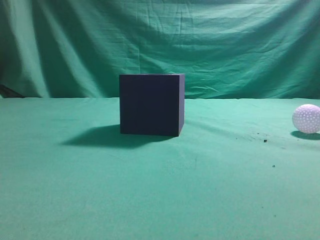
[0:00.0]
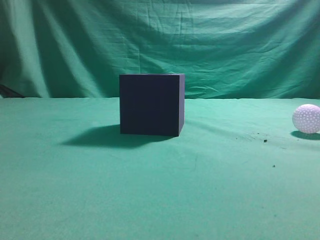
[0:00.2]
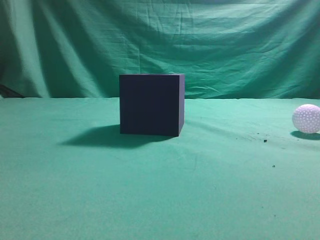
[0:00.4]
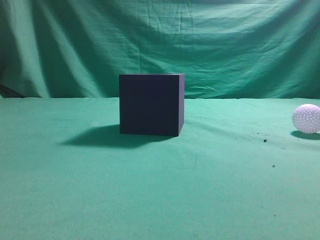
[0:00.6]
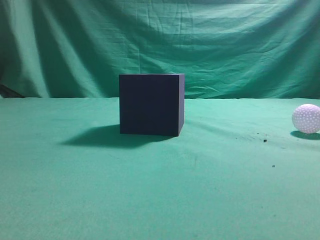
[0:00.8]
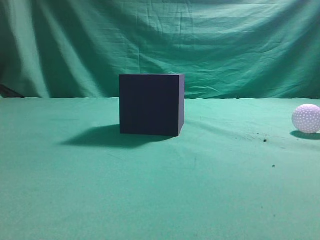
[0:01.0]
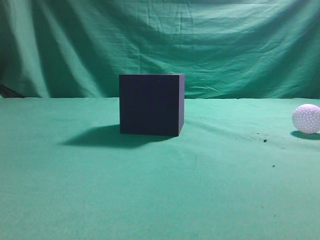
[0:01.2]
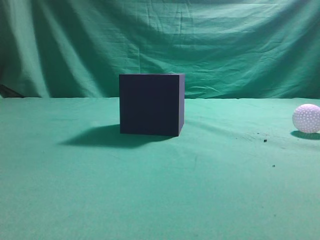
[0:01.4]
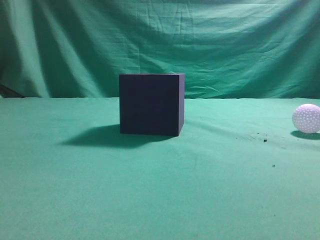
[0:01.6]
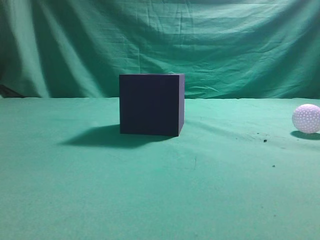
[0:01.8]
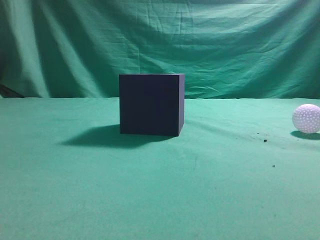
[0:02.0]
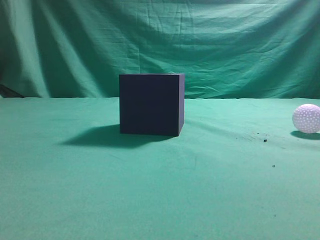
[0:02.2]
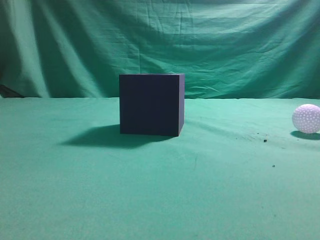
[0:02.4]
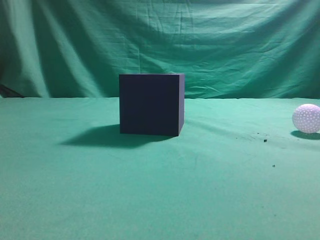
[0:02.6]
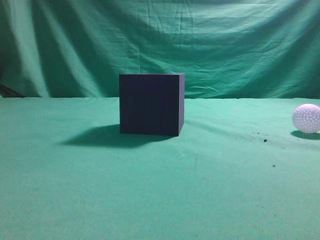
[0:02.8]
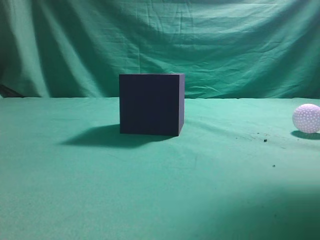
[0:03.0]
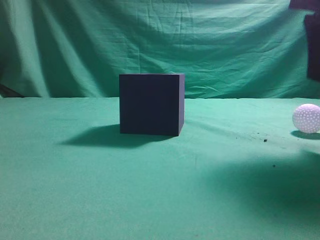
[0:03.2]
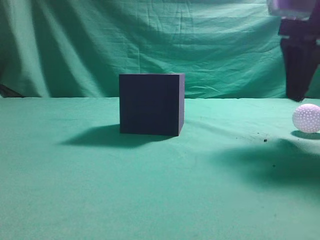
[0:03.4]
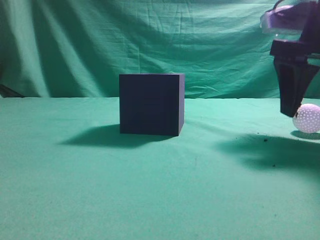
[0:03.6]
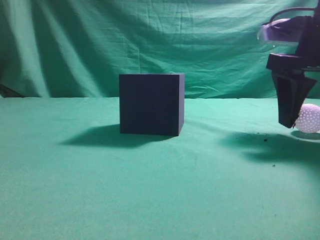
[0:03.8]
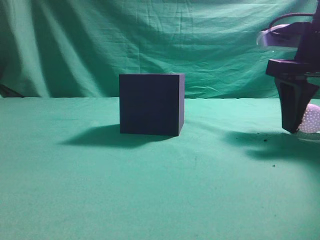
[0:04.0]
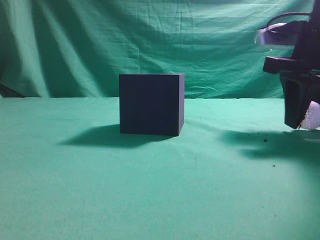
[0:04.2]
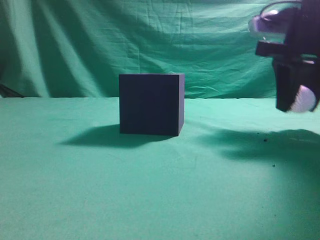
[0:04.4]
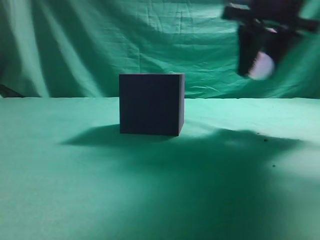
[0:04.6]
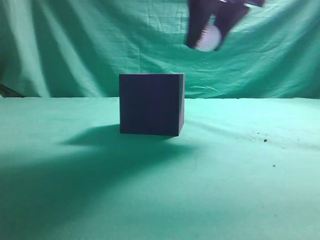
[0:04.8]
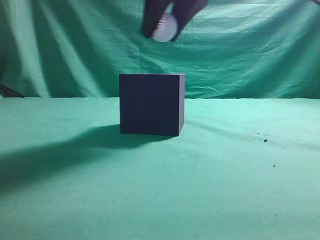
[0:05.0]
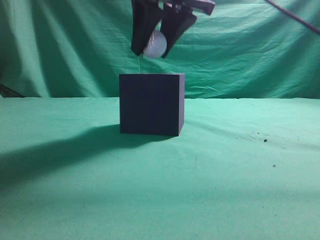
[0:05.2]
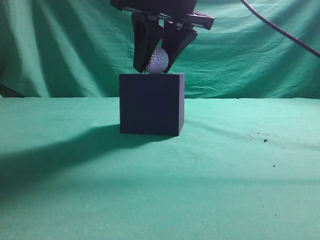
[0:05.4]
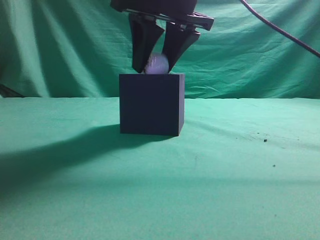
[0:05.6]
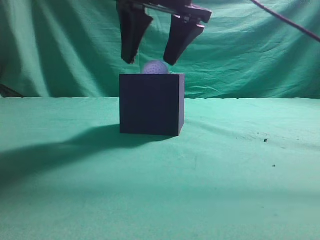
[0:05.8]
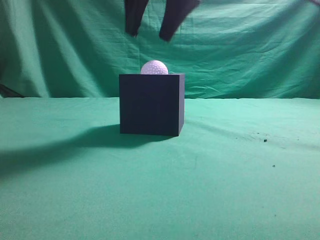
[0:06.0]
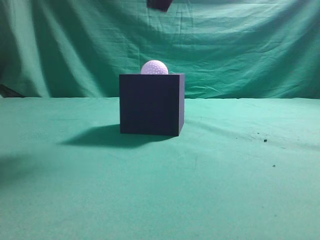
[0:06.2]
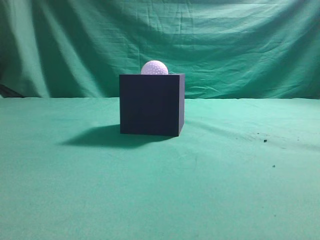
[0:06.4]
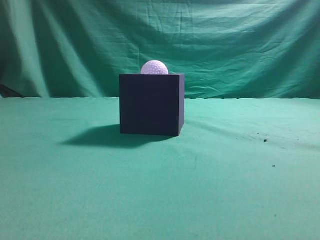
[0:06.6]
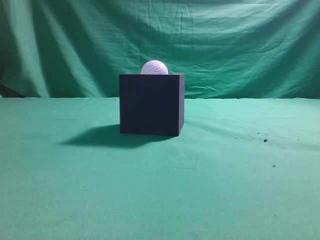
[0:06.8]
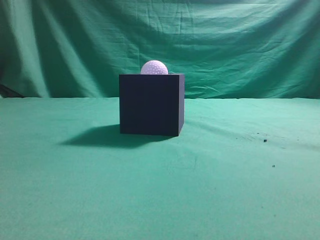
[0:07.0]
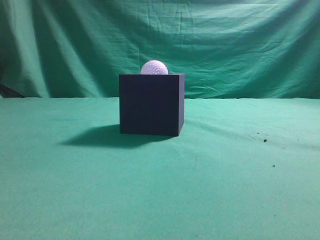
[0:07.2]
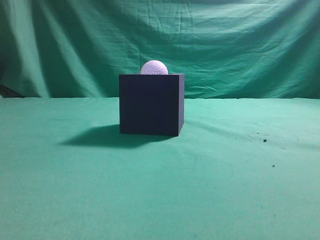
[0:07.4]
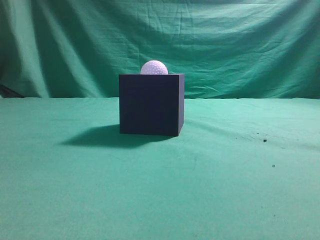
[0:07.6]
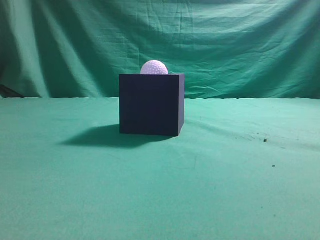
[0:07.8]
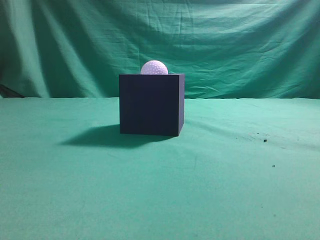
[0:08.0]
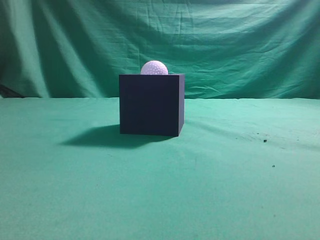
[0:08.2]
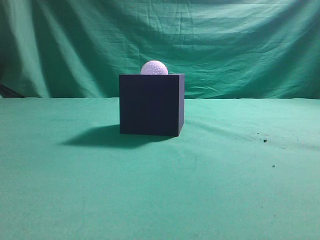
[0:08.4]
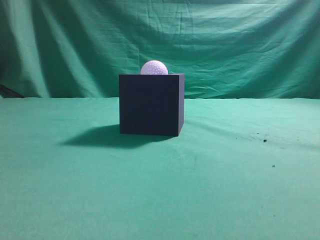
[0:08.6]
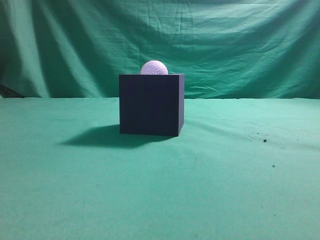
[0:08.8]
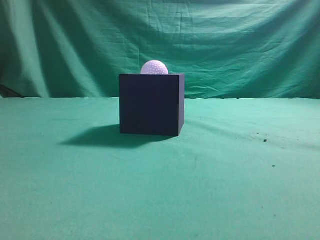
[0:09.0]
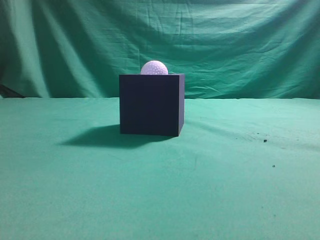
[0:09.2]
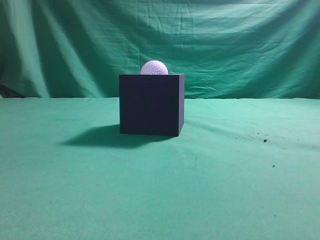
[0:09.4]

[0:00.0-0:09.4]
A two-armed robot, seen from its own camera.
Task of the whole recording: Pick up the ball and place it in the circular groove above the cube.
Step, 0:00.0 to 0:04.4: Grasp the sphere on the table.
Step, 0:04.6 to 0:06.0: Place the sphere into the sphere-shaped recess.
0:01.6 to 0:03.2: The right gripper travels forward by roughly 25 cm, and opens its fingers.
0:03.2 to 0:04.8: The right gripper shifts some 15 cm to the left and forward, and opens and closes again.
0:04.8 to 0:06.2: The right gripper goes roughly 10 cm to the left and upward, and closes up.
